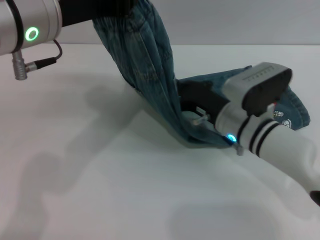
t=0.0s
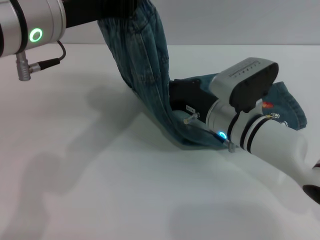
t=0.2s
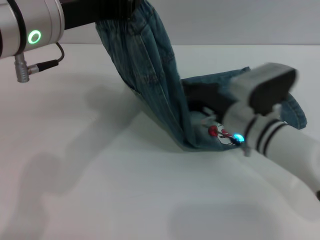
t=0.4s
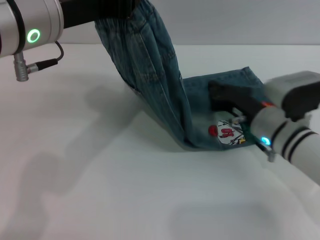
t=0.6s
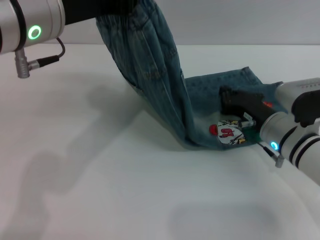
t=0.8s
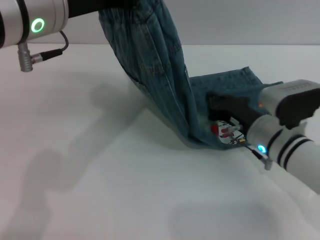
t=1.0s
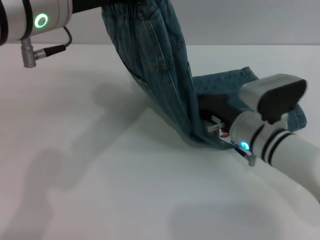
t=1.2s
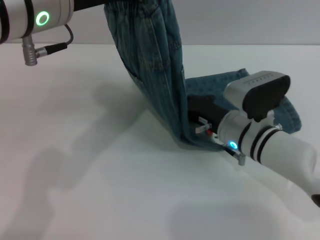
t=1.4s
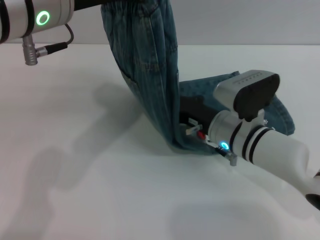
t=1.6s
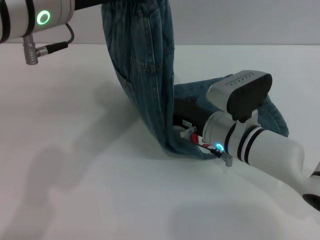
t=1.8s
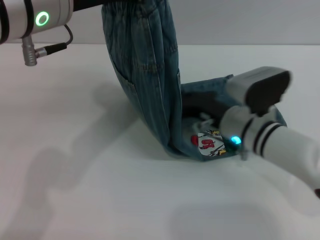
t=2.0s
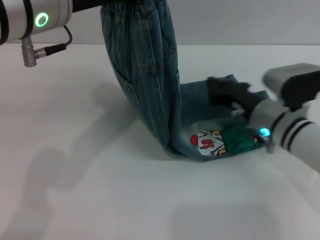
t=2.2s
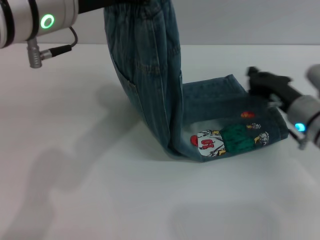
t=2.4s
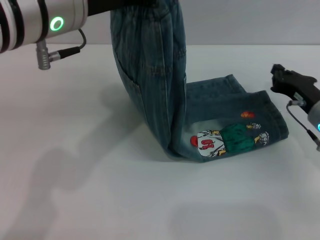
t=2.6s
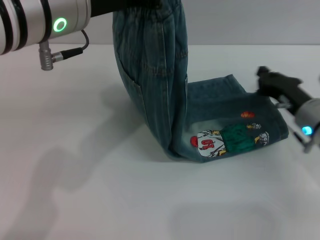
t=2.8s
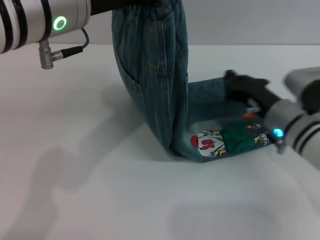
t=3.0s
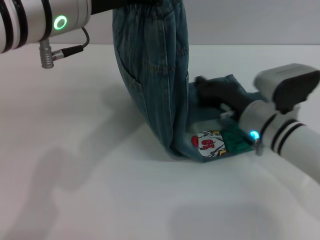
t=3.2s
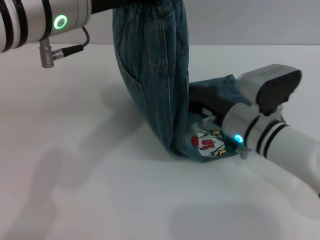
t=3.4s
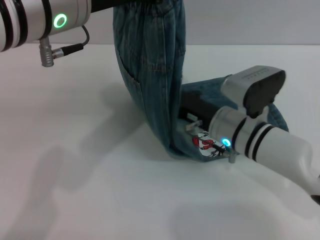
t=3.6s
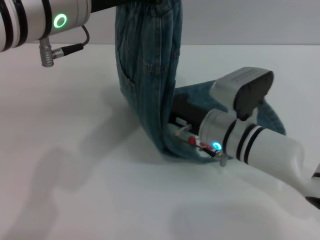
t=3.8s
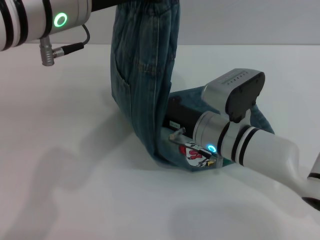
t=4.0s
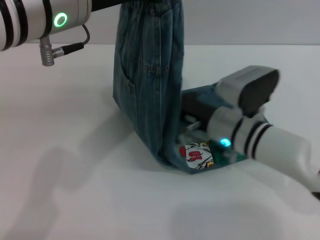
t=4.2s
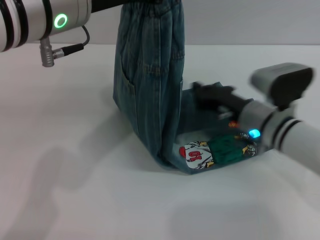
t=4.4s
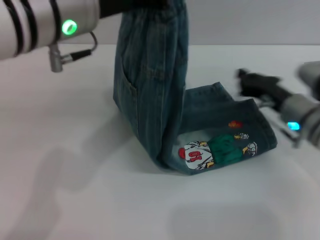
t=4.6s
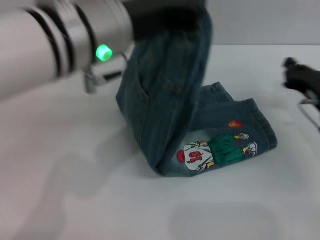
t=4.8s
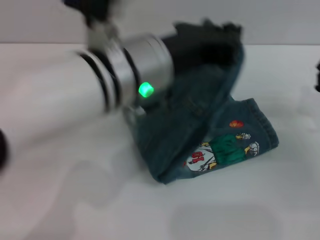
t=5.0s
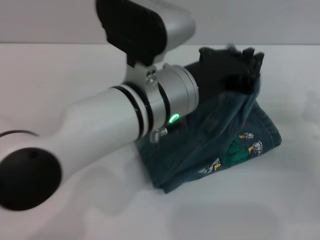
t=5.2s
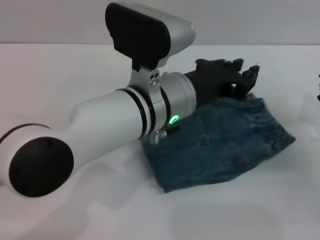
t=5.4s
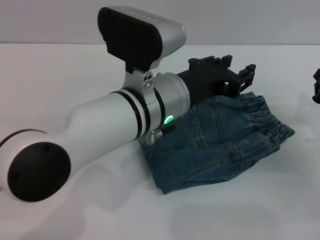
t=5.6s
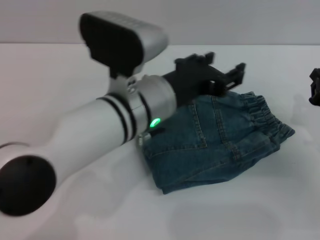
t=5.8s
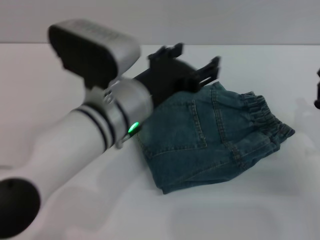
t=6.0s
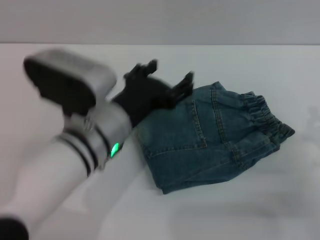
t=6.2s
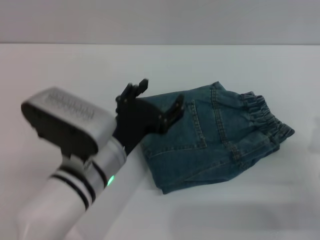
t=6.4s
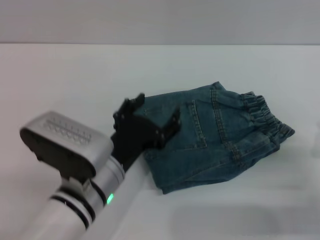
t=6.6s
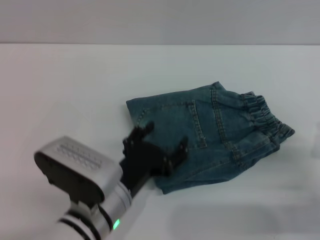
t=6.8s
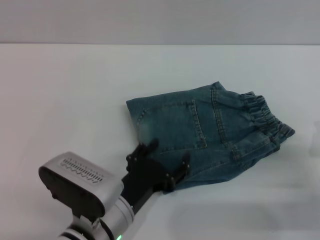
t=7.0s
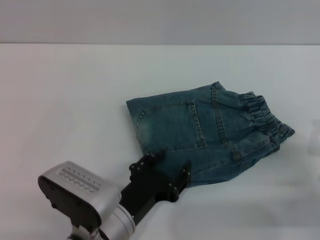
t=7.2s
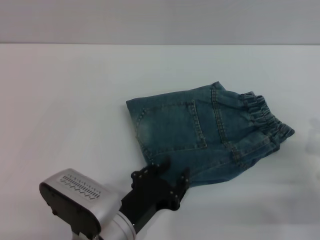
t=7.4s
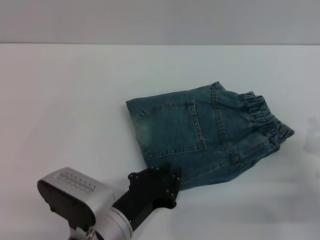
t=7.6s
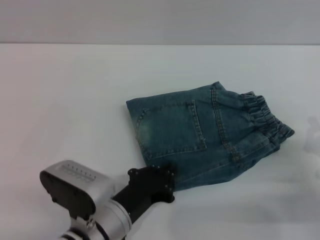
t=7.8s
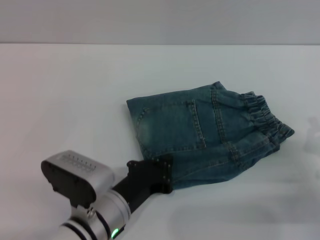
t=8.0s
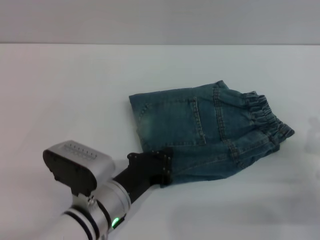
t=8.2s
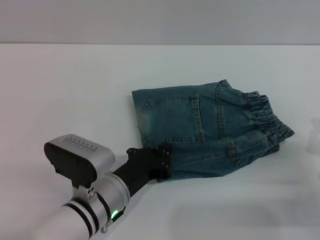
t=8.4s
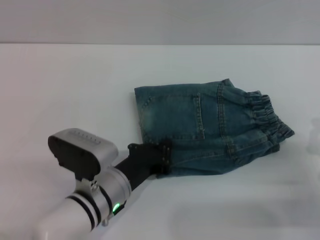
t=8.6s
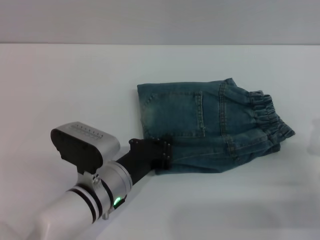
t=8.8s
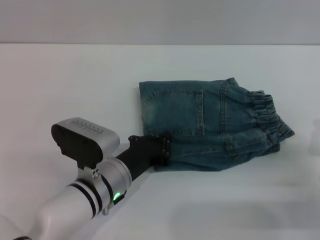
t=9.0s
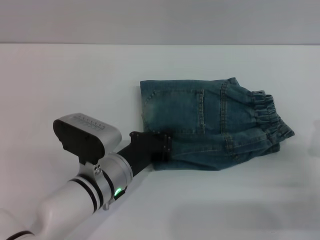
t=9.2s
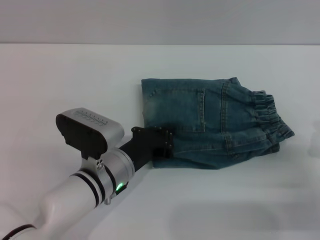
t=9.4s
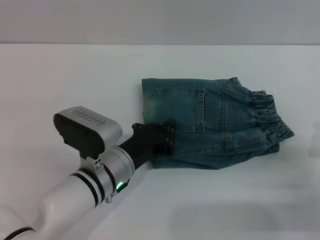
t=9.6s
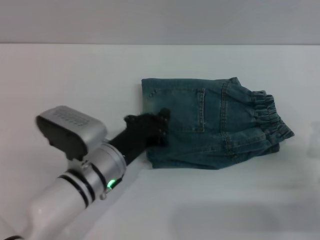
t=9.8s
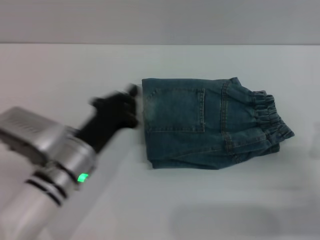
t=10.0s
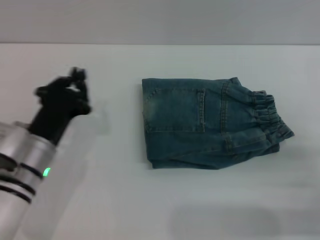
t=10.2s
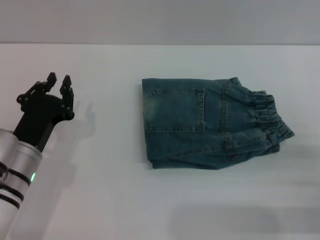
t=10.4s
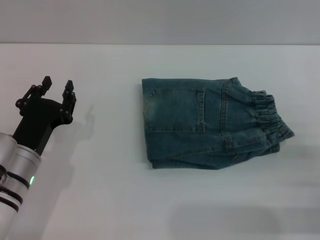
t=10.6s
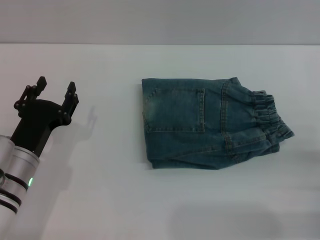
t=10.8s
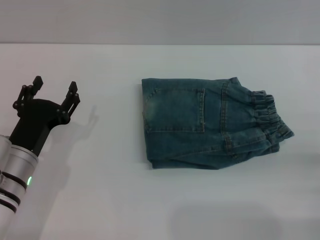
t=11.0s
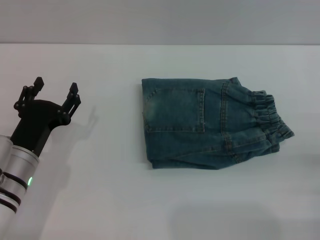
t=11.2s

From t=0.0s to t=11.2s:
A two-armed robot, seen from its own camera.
Step, from t=0.0s to t=5.8s: Fold the pants from left to right with the left gripper.
Step, from t=6.0s to t=9.8s: Place the folded trousers onto the center area with the left grippers.
From t=0.0s to t=1.6s: The right gripper reaches about 5 cm to the right, then returns.
From t=1.6s to t=3.2s: The right gripper reaches about 15 cm to the right, then returns.
From t=3.2s to t=4.8s: The right gripper heads to the right, covering roughly 10 cm.
From t=4.8s to t=6.4s: The left gripper moves downward, some 15 cm, and opens its fingers; the right gripper moves backward, roughly 15 cm.
From t=6.4s to t=8.0s: The left gripper is displaced downward by some 10 cm, and closes up.
From t=8.0s to t=9.6s: The left gripper heads forward, covering about 5 cm.
From t=9.6s to t=11.2s: The right gripper opens. The left gripper is displaced to the left by some 10 cm, and opens up.
